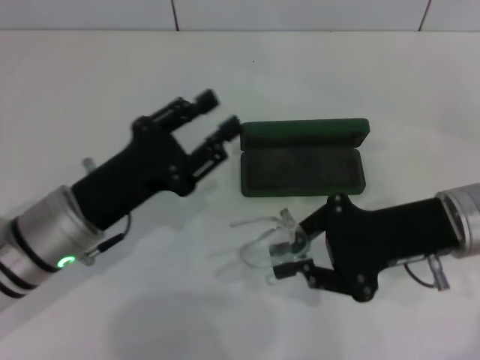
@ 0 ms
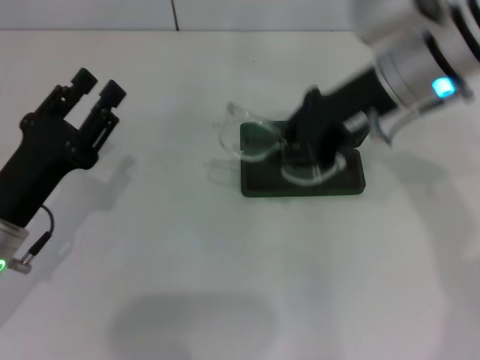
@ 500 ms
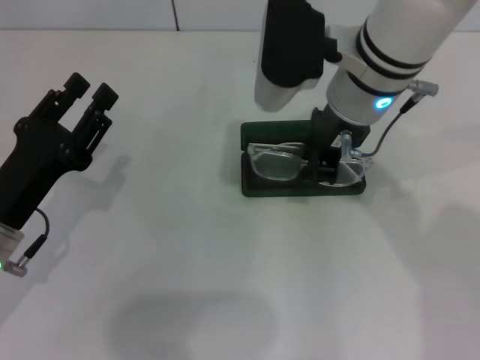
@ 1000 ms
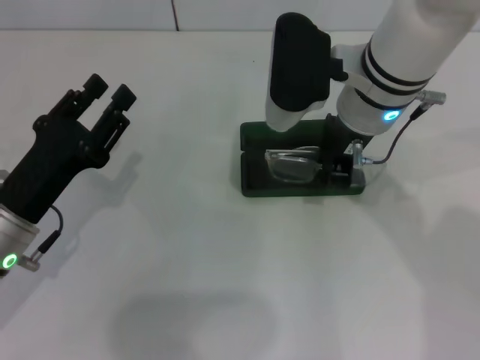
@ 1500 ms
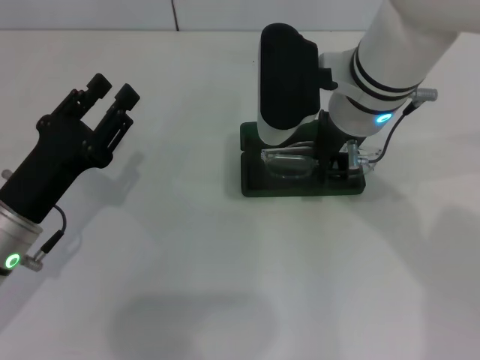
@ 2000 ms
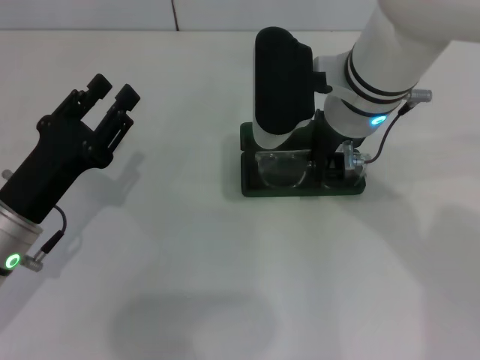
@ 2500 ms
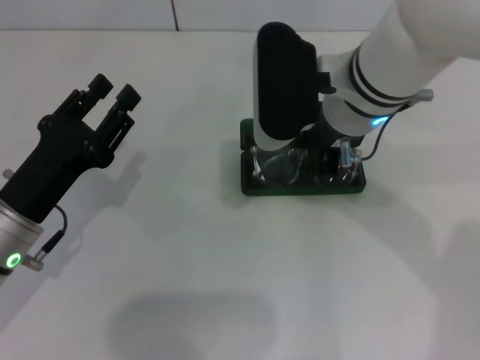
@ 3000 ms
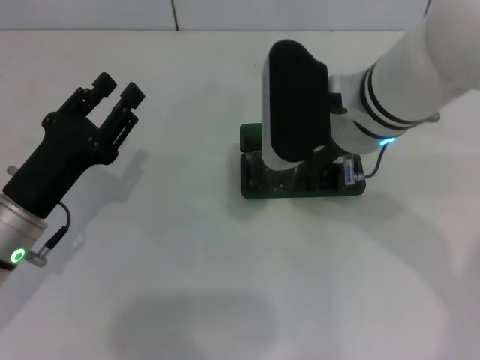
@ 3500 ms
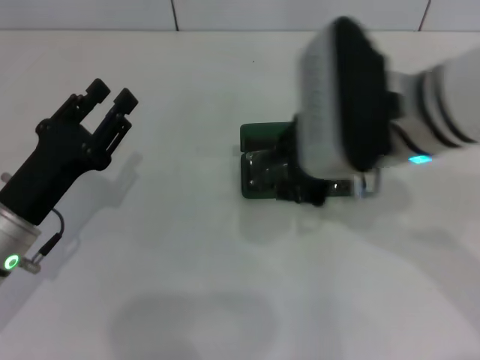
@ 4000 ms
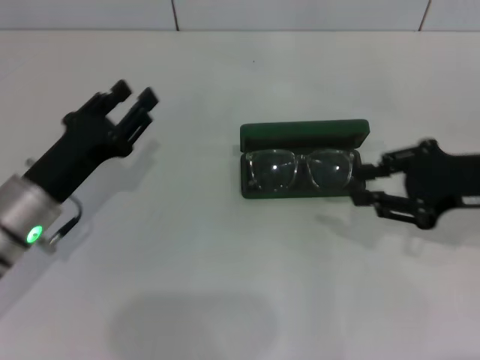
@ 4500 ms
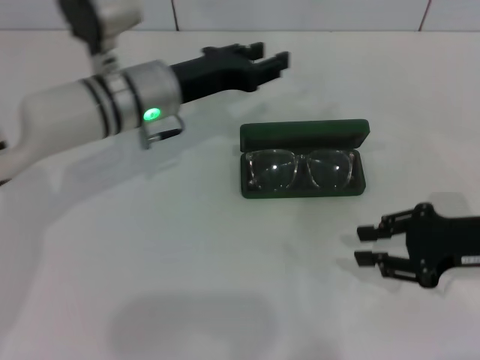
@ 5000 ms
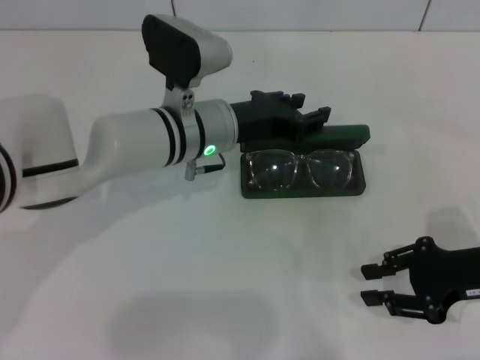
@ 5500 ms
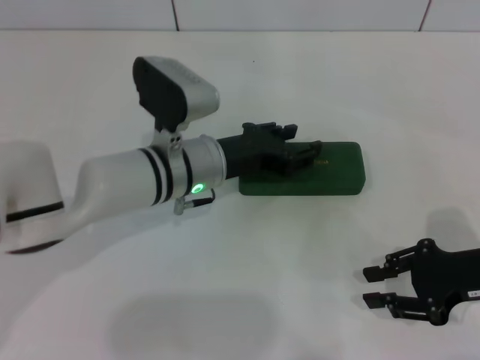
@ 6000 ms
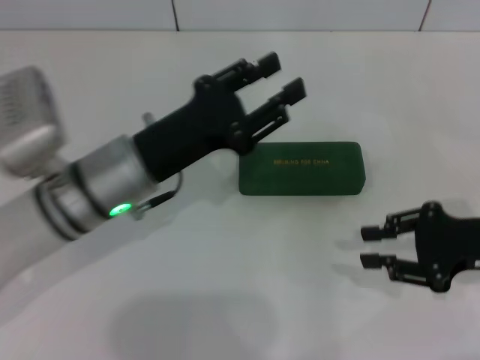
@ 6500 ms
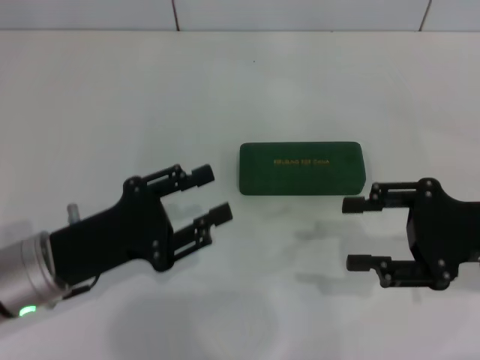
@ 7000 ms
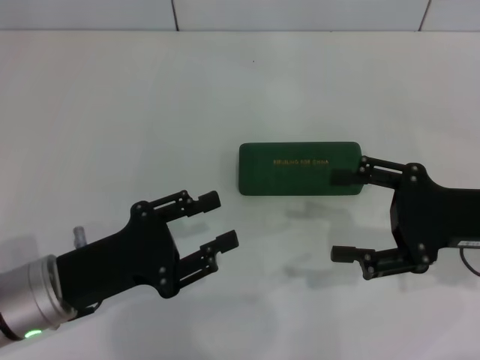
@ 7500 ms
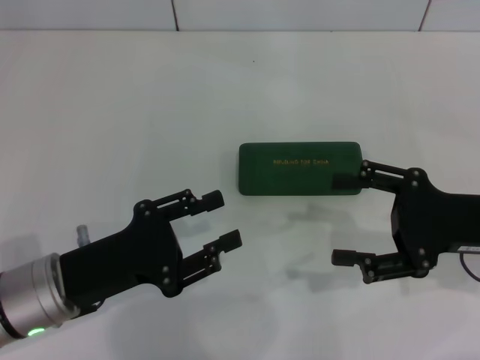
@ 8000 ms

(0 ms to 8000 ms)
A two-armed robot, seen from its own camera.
Step, 0 ms - 3000 ms: Put the glasses into the case with your right hand.
Step, 3500 ms - 5500 ms: Close the glasses case with your left hand.
0 ms - 2000 ms: The right gripper goes some 15 cm to the left, forward and upward. Meanwhile the left gripper goes approximately 5 cm to the left.
2000 ms - 4000 ms: The right gripper shifts approximately 5 cm backward.
4000 ms - 6000 ms: The left gripper shifts about 20 cm to the right and forward. The right gripper goes about 25 cm to the right and downward.
6000 ms - 8000 ms: The left gripper moves backward and to the left, roughly 20 cm; the right gripper opens.
